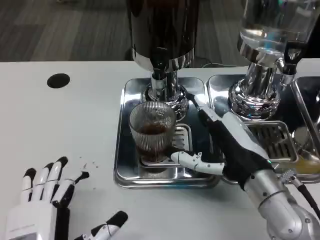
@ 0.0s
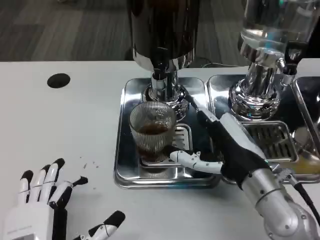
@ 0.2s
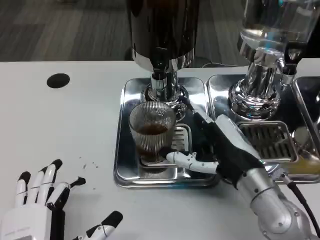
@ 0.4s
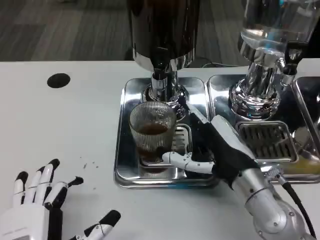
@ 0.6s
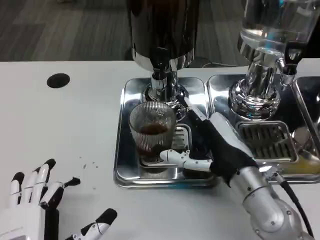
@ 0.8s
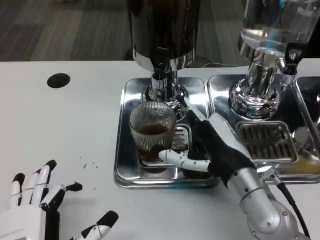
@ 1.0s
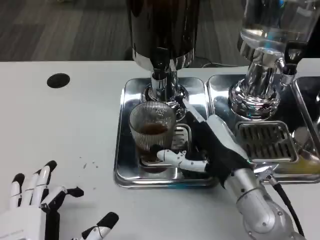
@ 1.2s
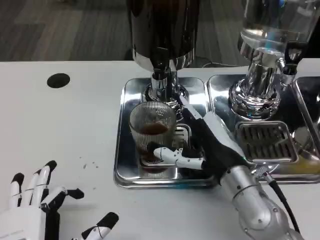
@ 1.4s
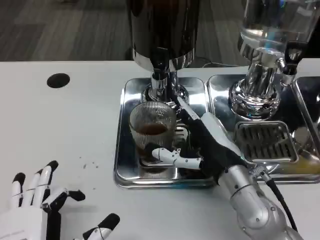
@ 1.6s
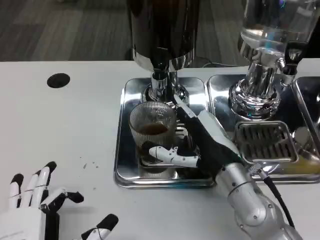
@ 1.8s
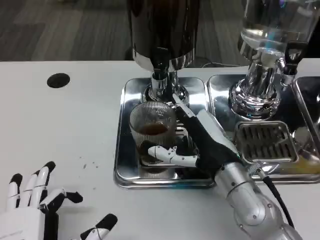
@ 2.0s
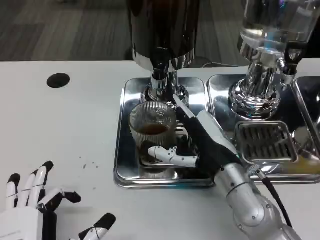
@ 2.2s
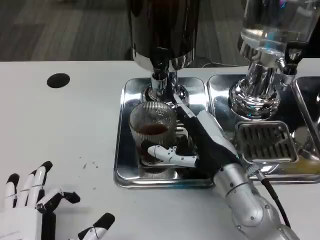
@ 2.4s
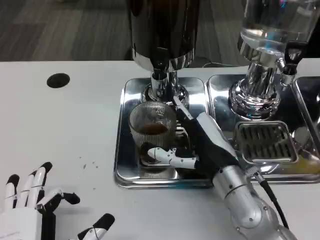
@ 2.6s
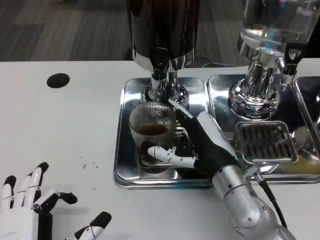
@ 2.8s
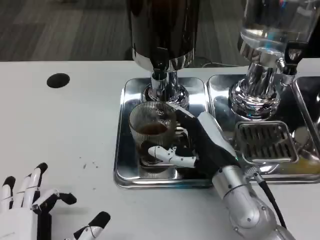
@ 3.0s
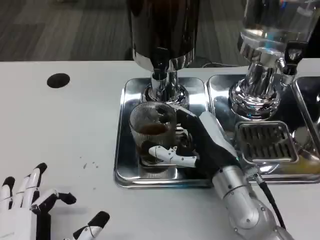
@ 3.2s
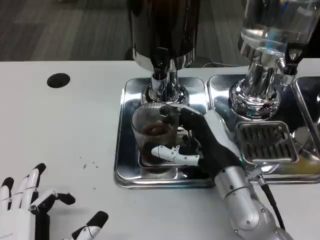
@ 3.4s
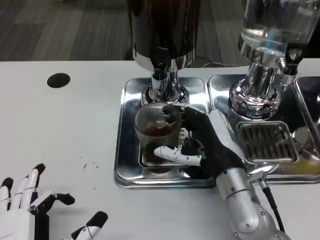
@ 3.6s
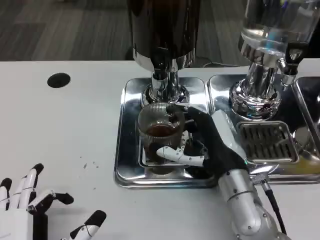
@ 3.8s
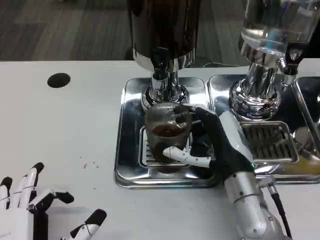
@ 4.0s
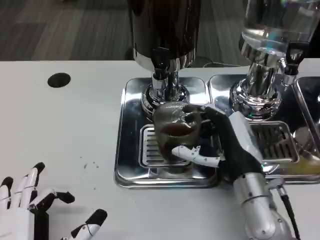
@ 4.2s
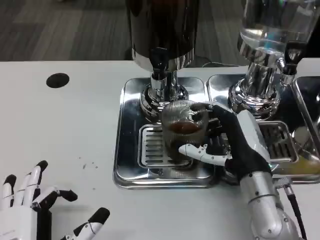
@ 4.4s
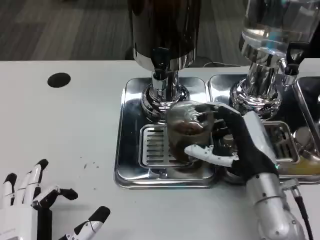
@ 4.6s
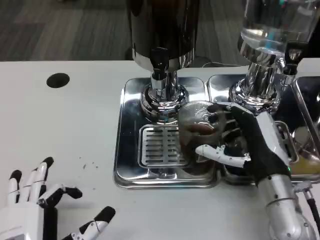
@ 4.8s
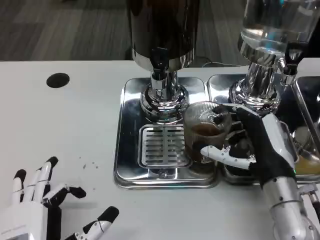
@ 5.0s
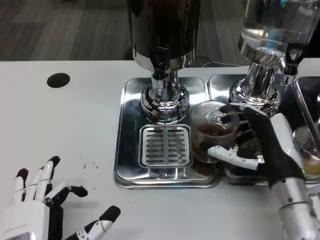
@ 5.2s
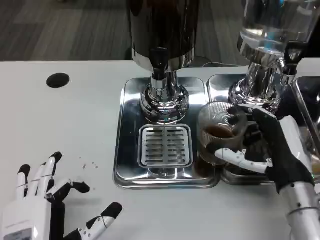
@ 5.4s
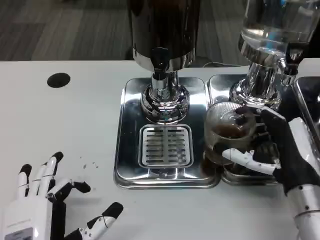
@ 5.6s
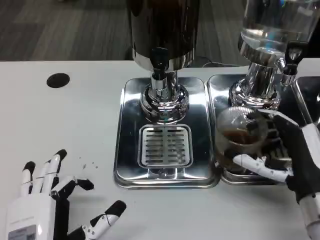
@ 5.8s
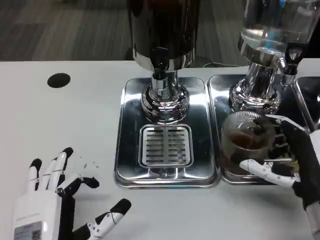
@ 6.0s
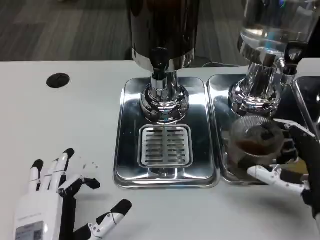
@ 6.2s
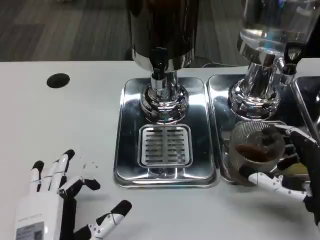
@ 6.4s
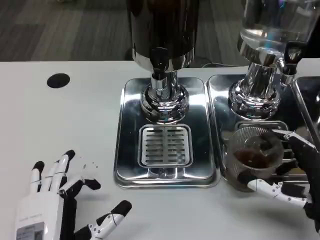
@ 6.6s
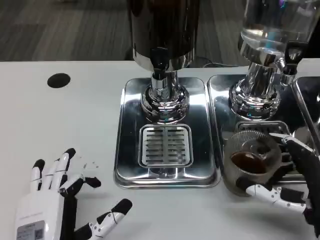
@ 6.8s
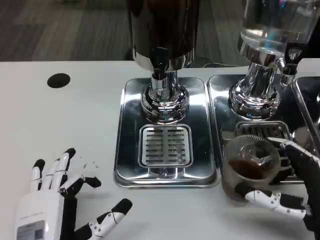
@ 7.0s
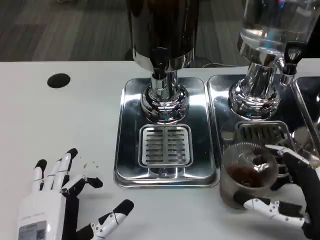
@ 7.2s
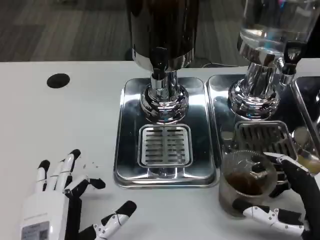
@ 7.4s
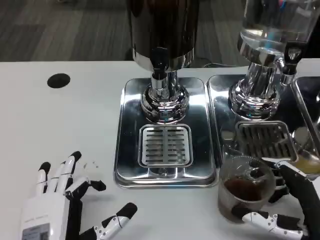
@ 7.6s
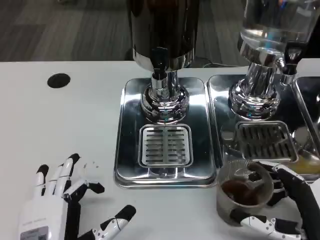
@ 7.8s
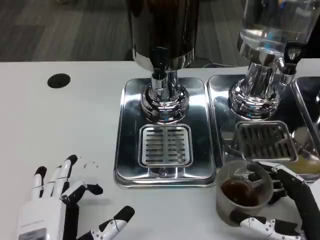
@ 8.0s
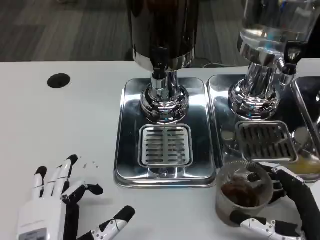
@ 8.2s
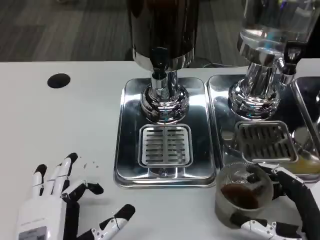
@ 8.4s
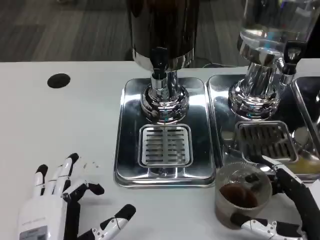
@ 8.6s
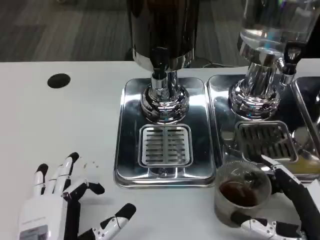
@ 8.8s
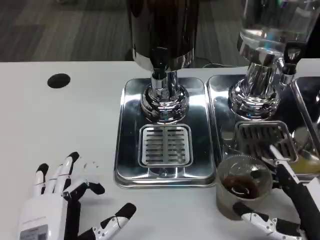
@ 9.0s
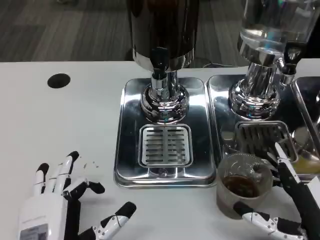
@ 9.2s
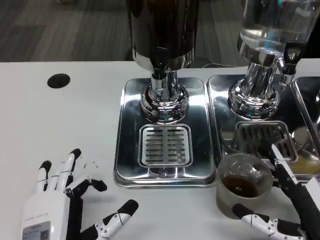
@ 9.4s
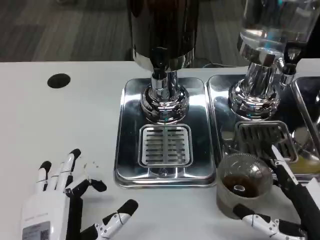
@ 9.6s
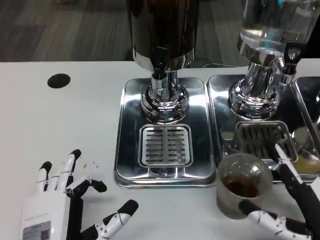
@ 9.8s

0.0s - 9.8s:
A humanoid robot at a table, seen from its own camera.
Task of the whole recording: Grasp the cup under the faucet to collect the drink, then remove the cup.
0.0s - 2.8s: There are only small adjustments of the hands.
4.2s - 5.6s: The right hand travels to the right by about 5 cm.
5.6s - 7.0s: The right hand shifts some 5 cm backward.
7.0s - 9.8s: The hands stay close to where they were, moving slightly.

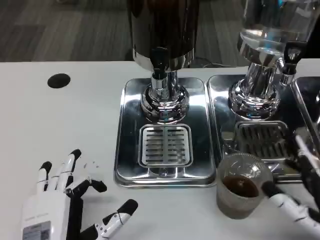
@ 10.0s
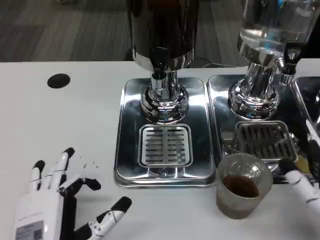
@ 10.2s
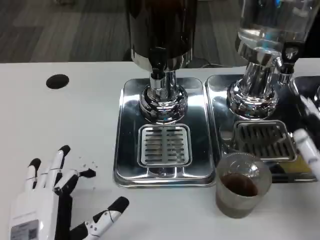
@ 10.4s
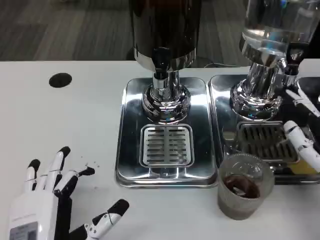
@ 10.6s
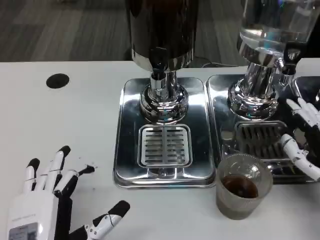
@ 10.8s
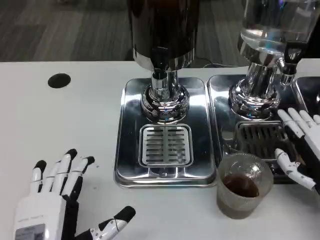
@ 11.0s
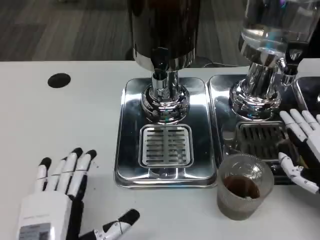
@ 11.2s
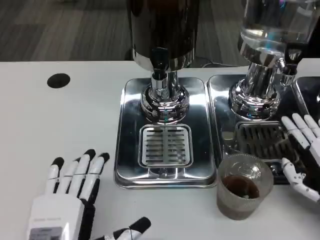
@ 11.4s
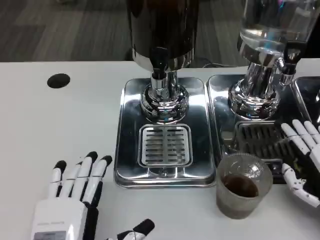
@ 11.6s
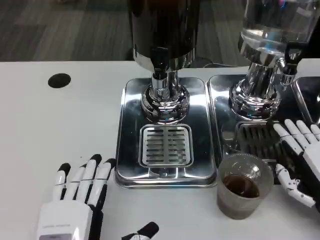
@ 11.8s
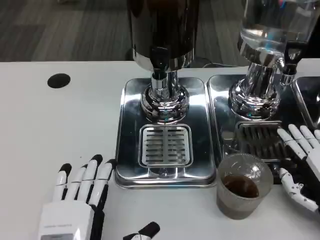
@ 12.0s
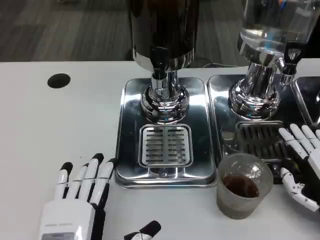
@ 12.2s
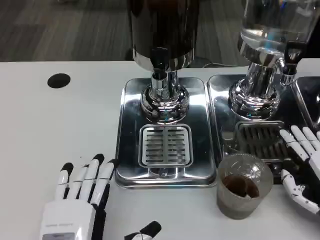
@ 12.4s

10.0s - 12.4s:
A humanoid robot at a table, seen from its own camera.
Task of the whole recording: Grasp the cup under the faucet to collect the drink, then remove the cup.
10.0s - 11.2s: The right hand heads forward, covering about 10 cm.
11.2s - 12.4s: There are only small adjustments of the hands.

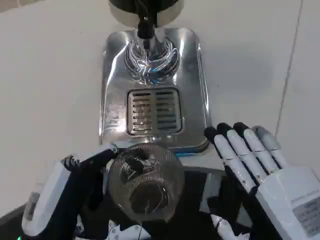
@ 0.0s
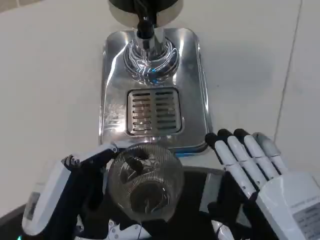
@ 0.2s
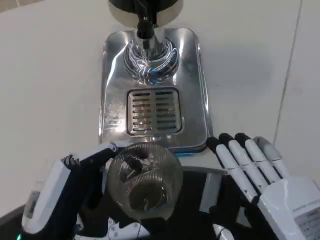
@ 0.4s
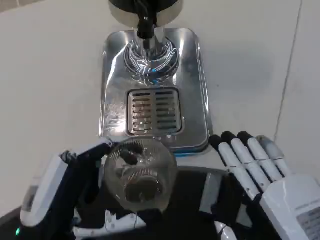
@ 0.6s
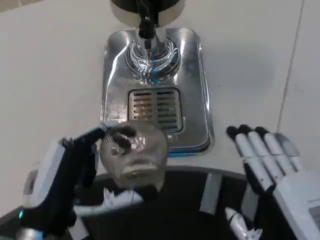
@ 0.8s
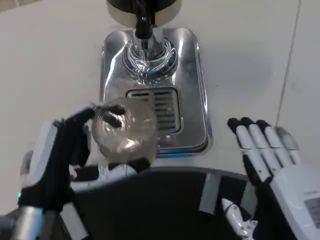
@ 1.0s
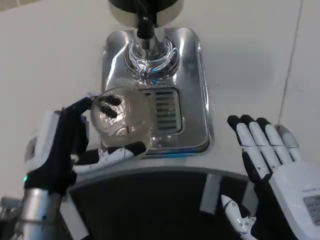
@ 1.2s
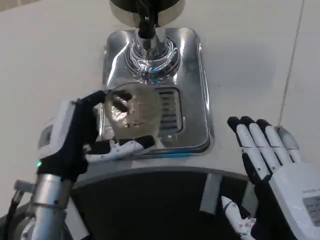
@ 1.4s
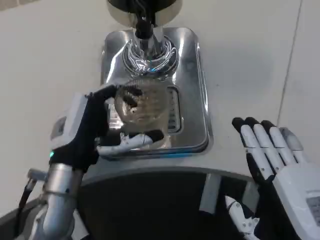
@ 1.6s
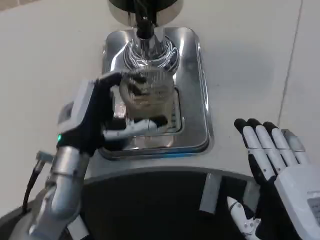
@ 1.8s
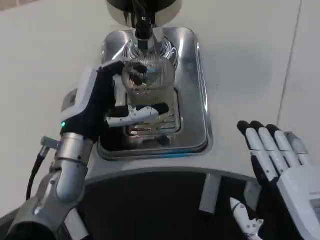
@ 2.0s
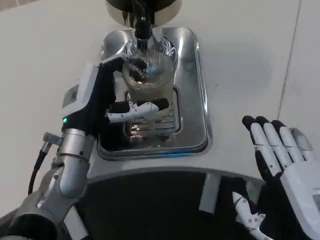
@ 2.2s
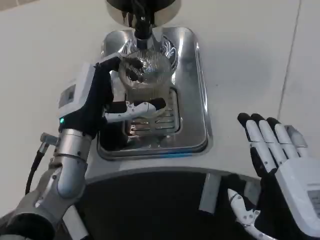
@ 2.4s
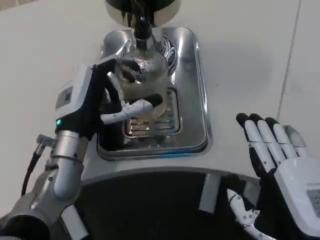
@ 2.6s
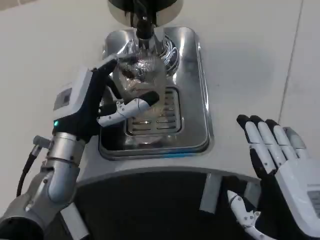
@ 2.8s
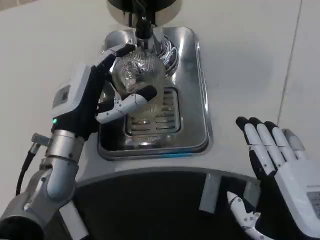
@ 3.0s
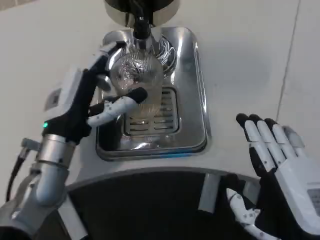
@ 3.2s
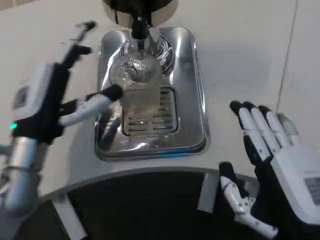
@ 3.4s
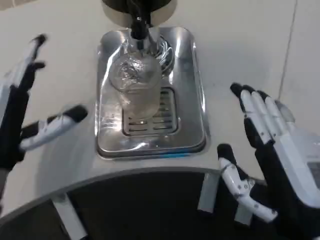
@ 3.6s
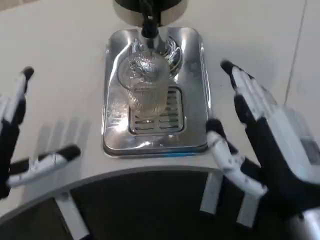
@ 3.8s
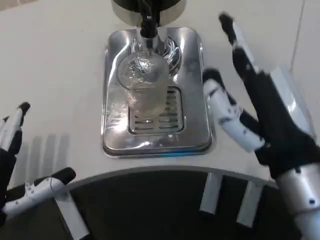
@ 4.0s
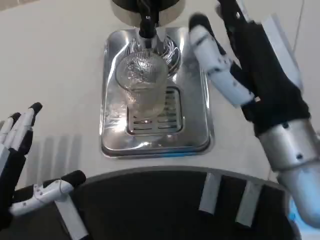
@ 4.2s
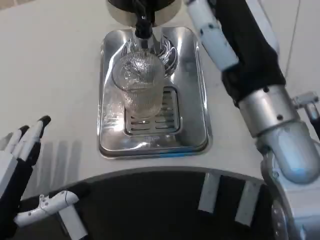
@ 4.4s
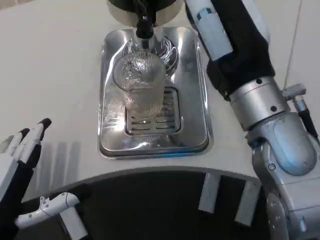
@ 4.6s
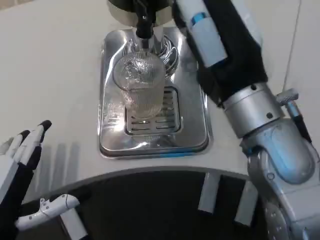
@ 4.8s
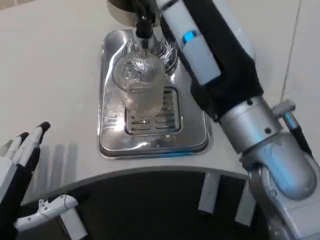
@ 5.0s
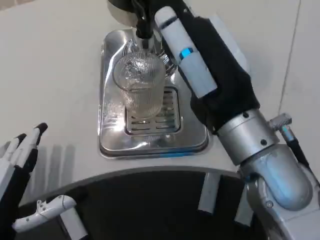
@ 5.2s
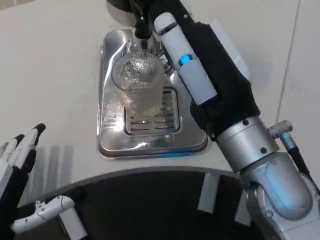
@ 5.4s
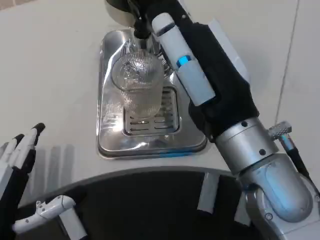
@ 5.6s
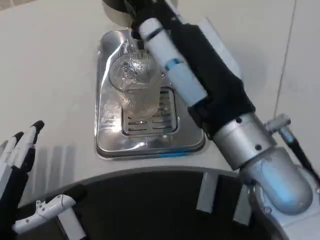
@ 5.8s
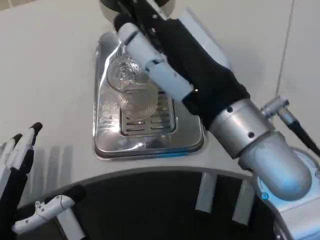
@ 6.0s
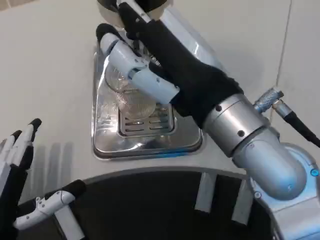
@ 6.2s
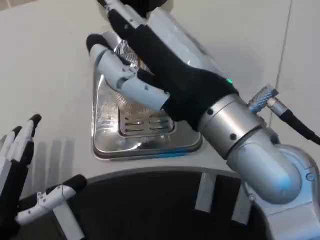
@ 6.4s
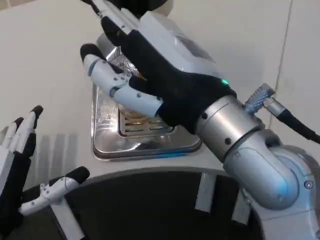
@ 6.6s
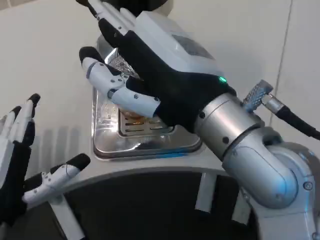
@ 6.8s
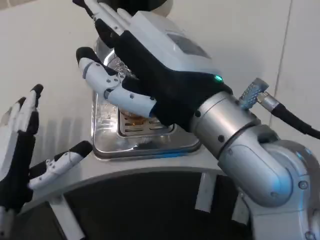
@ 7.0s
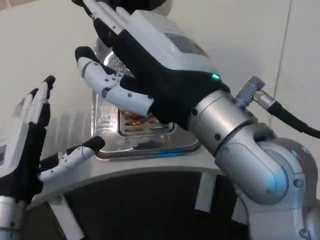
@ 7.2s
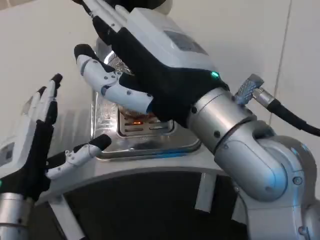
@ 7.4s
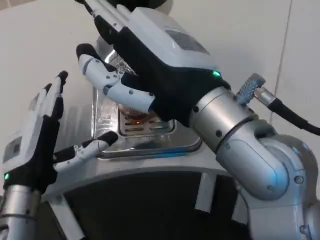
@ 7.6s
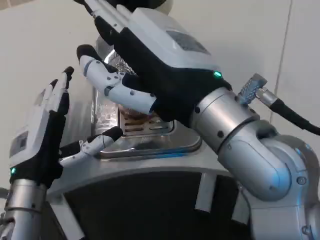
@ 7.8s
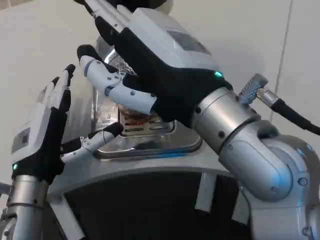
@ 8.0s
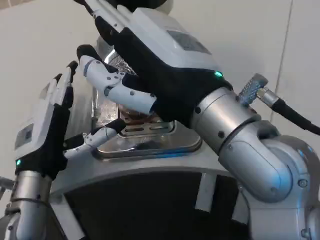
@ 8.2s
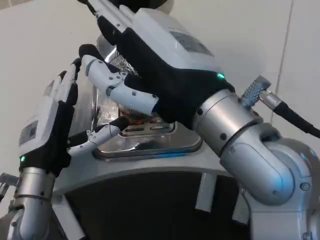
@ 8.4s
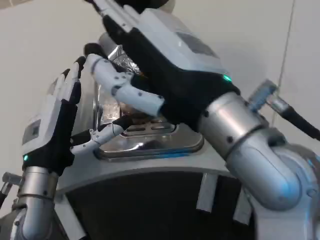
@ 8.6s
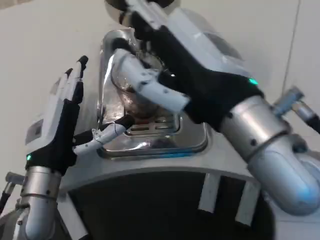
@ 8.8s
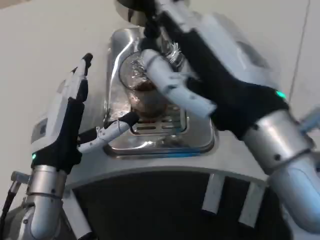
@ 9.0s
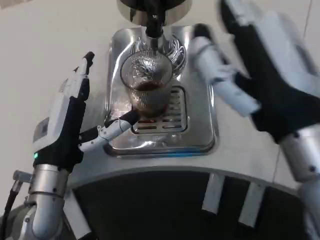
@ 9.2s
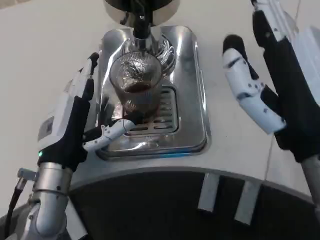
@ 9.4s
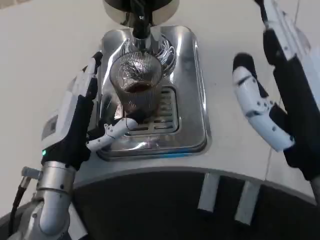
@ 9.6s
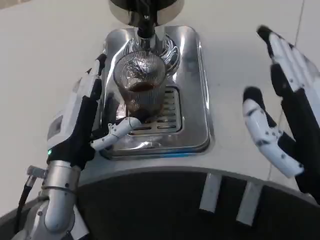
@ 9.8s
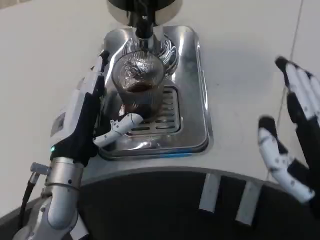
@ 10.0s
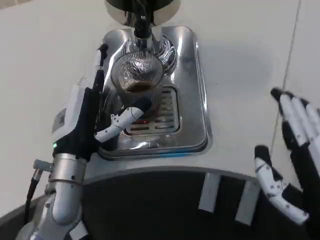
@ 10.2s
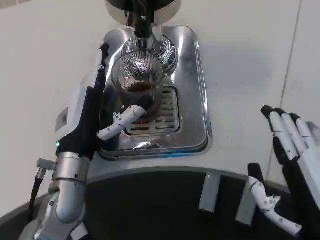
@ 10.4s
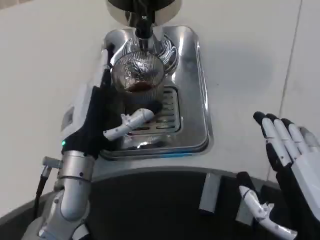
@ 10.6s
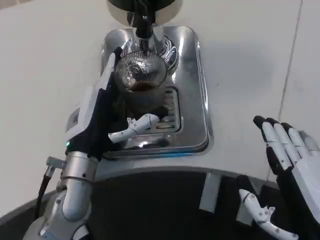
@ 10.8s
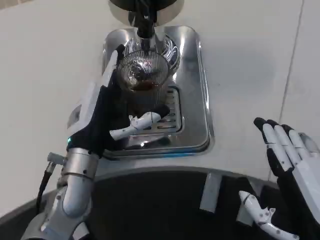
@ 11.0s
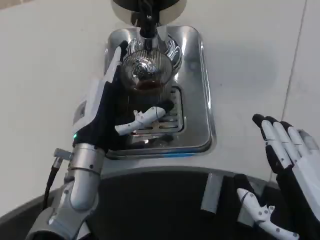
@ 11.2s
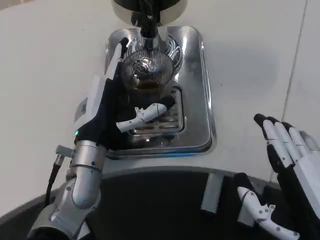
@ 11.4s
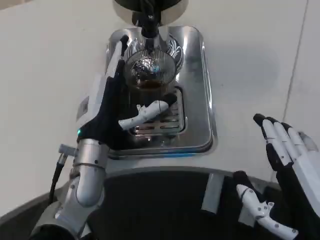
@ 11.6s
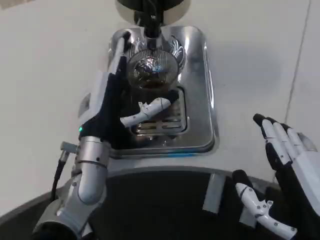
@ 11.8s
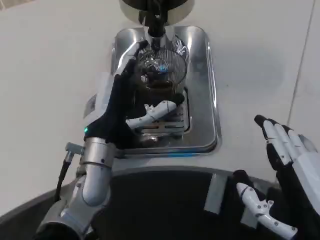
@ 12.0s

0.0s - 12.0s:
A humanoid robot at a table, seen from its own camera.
Task of the whole recording: Grasp the cup under the faucet to collect the drink, then remove the cup.
0.0s - 1.6s: The left hand shifts roughly 15 cm forward.
3.0s - 4.4s: The left hand heads backward and to the left, covering approximately 20 cm. The right hand is displaced upward, forward and to the left by approximately 20 cm.
6.0s - 7.6s: The left hand is displaced forward by about 10 cm.
7.6s - 9.0s: The right hand changes place by roughly 5 cm.
9.0s - 10.4s: The right hand shifts approximately 15 cm downward, to the right and backward.
